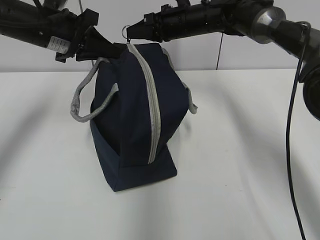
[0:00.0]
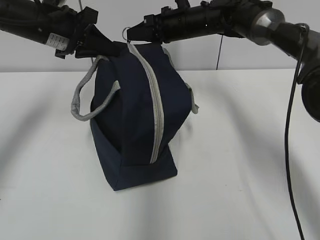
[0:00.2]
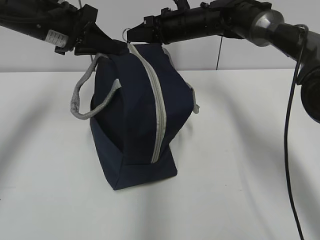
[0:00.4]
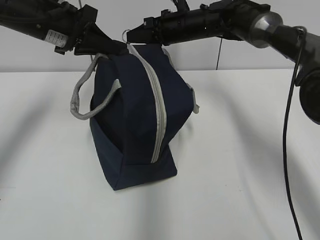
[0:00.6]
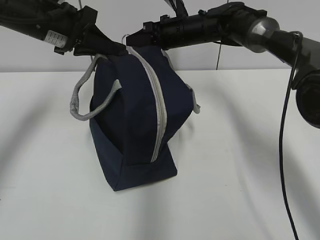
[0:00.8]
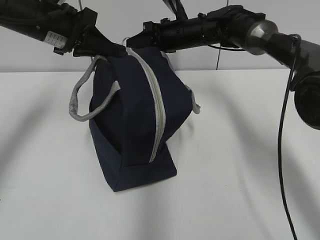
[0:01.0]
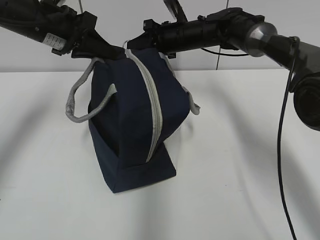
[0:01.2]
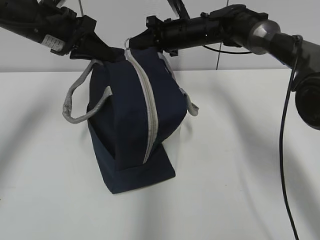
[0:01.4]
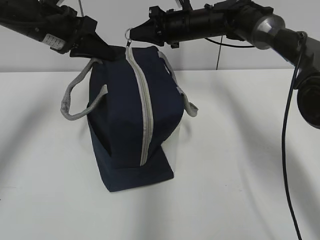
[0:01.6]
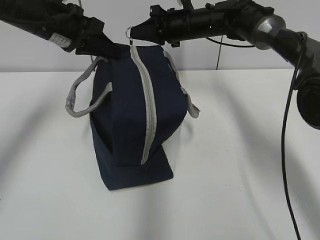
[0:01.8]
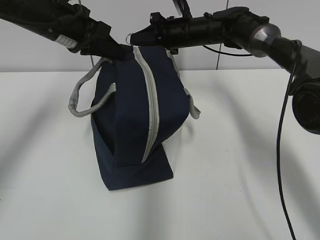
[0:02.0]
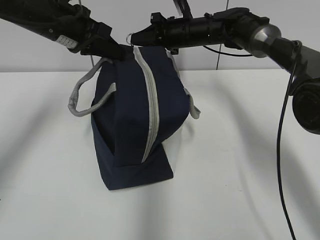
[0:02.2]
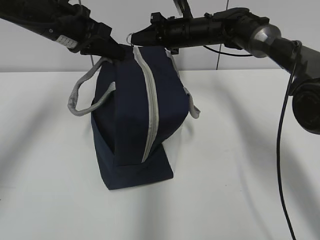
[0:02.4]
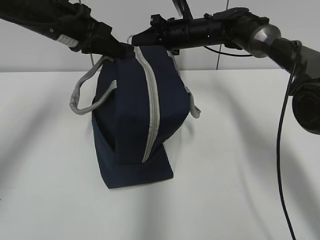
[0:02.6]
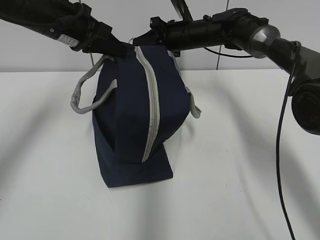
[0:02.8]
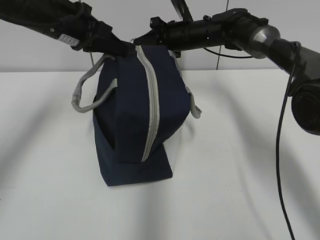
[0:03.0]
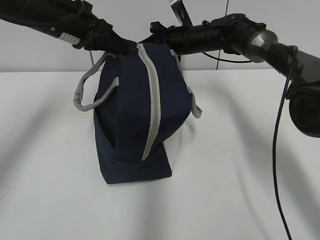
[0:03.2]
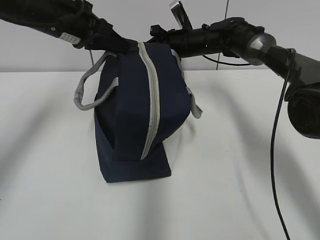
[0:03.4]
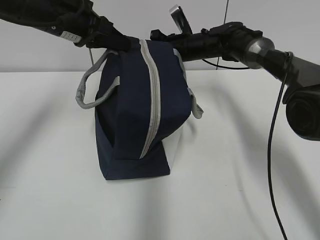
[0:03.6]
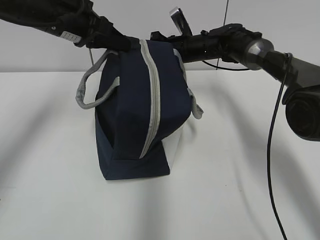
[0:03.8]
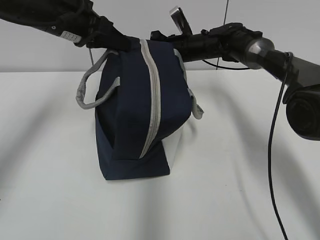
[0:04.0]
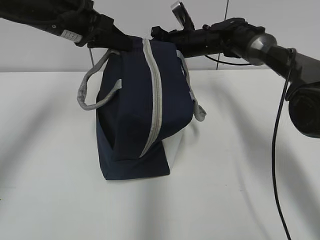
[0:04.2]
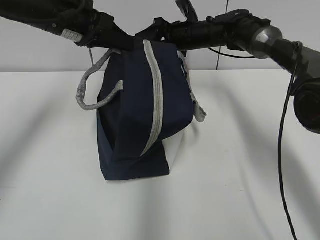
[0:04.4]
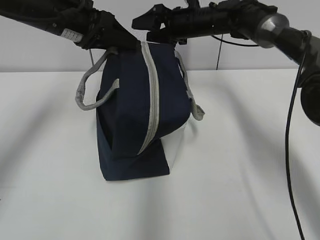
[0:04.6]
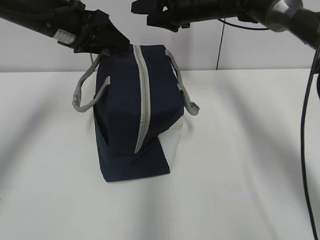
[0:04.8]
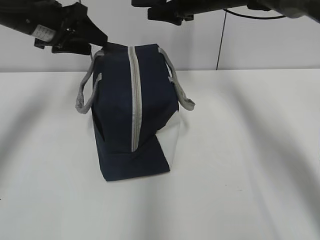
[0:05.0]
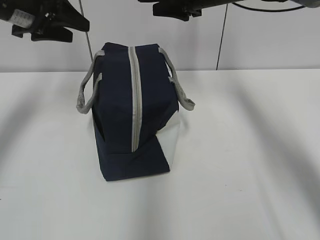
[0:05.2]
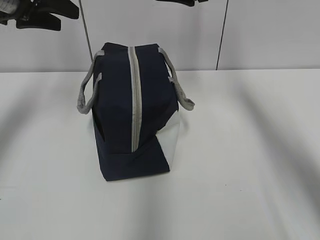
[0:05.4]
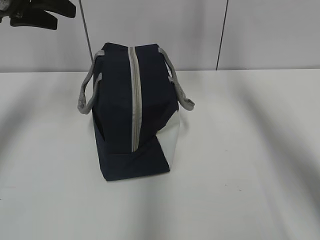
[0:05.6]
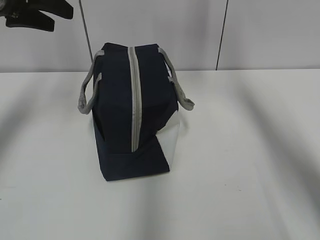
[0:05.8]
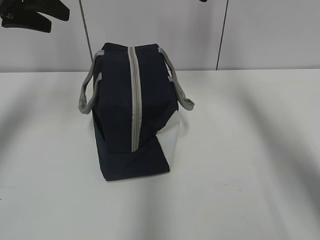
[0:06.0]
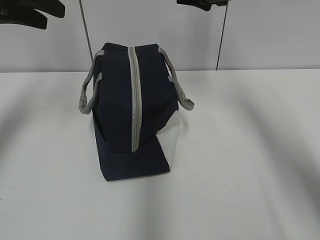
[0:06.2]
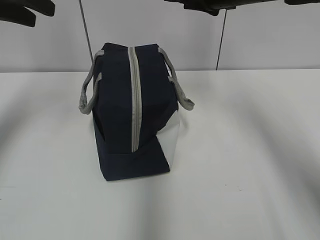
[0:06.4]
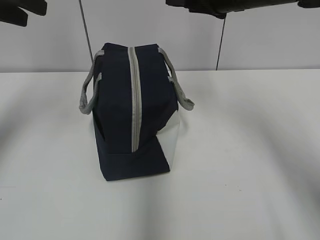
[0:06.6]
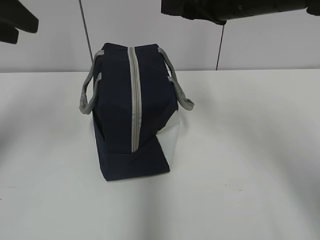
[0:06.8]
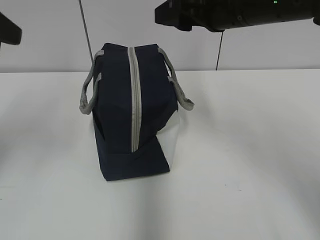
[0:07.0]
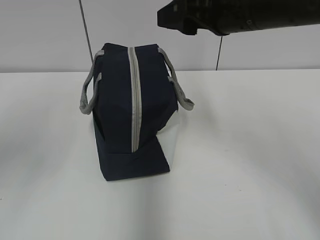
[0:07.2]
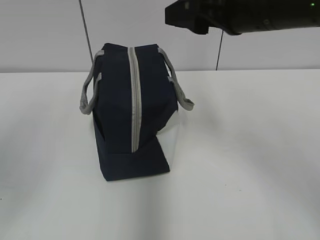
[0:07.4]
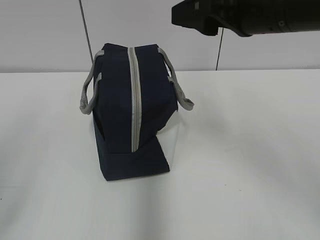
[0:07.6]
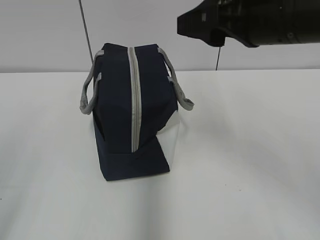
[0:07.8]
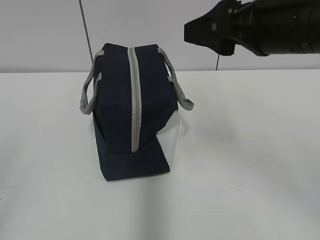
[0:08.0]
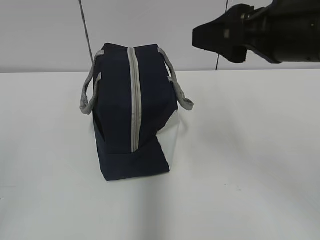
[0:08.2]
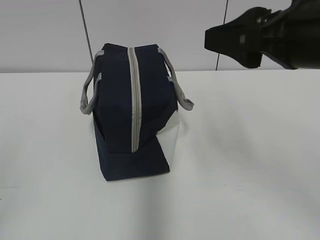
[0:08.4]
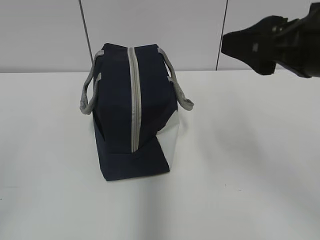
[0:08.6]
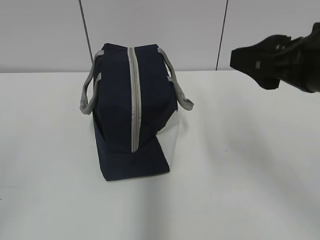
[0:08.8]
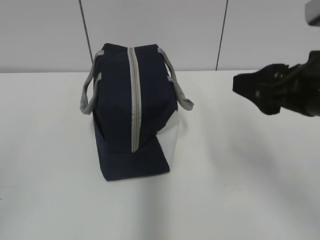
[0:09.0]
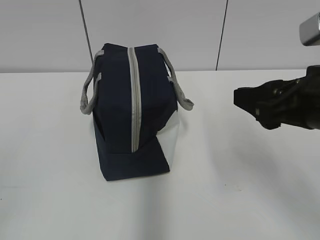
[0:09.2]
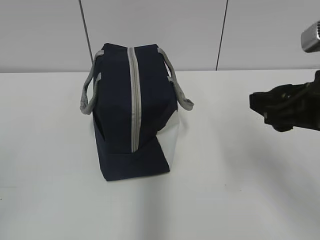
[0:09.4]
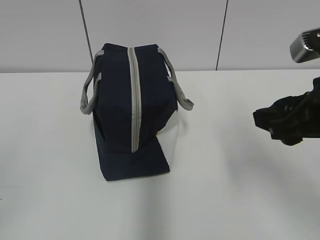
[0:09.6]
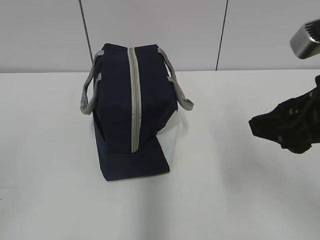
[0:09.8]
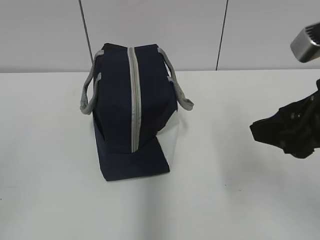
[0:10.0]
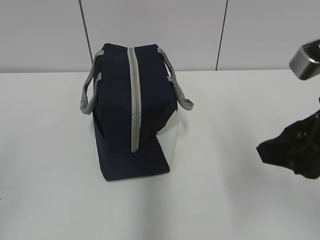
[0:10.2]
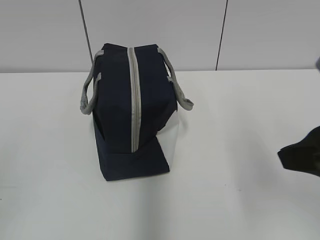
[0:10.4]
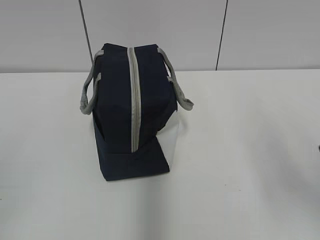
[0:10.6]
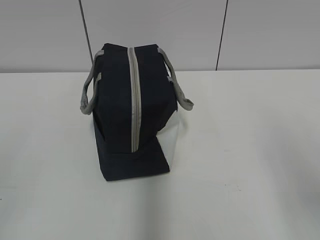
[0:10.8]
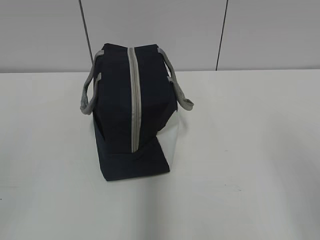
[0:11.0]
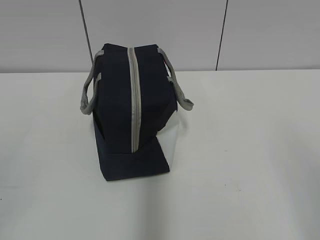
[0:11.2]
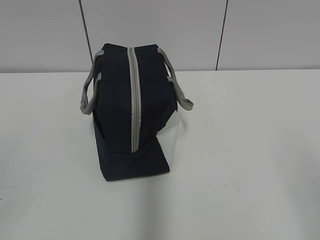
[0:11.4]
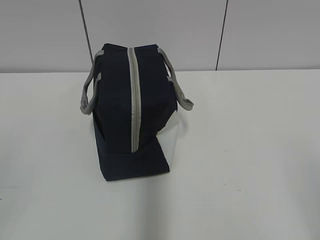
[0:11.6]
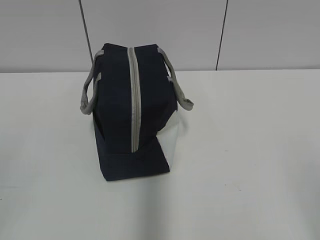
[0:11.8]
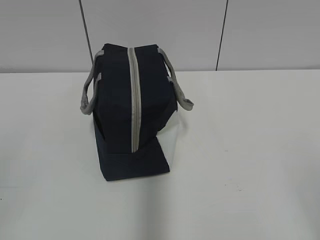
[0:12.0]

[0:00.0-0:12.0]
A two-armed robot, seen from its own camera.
0:00.0 to 0:01.6: There are only small adjustments of the grippers.
0:01.6 to 0:03.0: The grippers make only small movements.
0:03.0 to 0:04.4: The right gripper opens.
0:04.4 to 0:06.0: The right gripper heads upward and backward, covering about 15 cm, while the left gripper goes roughly 10 cm to the left and upward, and opens up.
0:06.0 to 0:07.6: The two grippers go approximately 25 cm backward.
0:07.6 to 0:09.0: The right gripper is displaced backward, downward and to the right by about 10 cm, while the left gripper moves backward and downward, roughly 10 cm.
0:09.0 to 0:10.4: The right gripper heads backward, covering approximately 5 cm.
0:10.4 to 0:12.0: The right gripper goes some 15 cm backward.

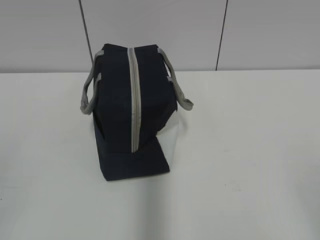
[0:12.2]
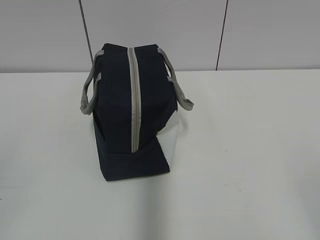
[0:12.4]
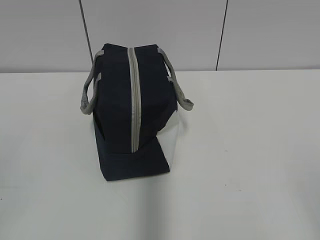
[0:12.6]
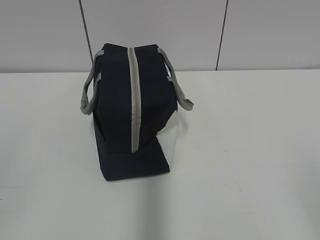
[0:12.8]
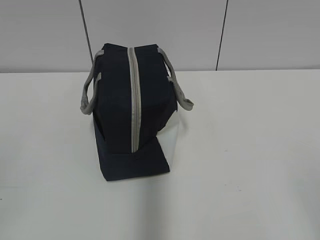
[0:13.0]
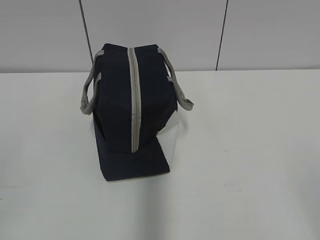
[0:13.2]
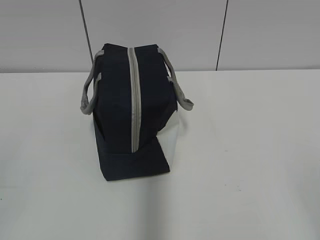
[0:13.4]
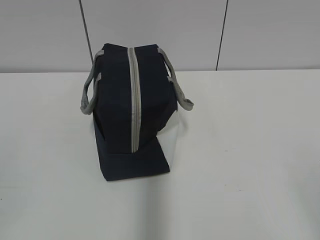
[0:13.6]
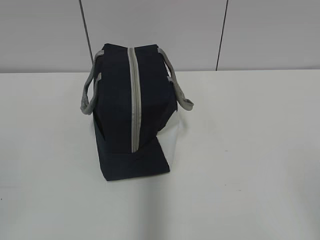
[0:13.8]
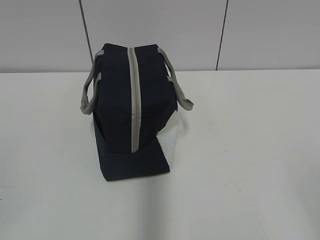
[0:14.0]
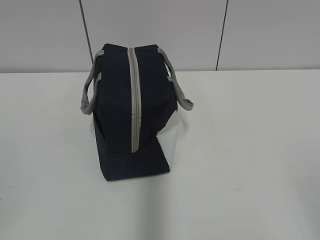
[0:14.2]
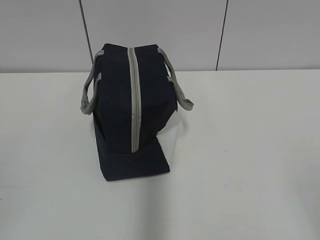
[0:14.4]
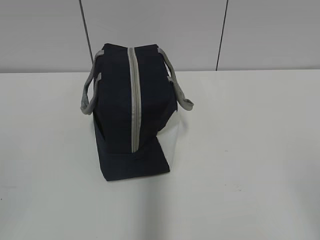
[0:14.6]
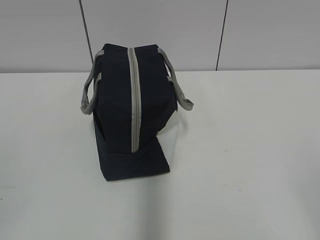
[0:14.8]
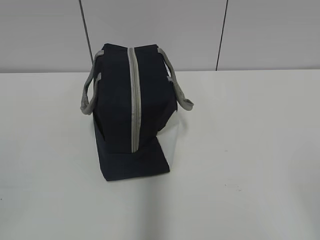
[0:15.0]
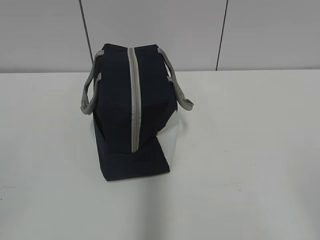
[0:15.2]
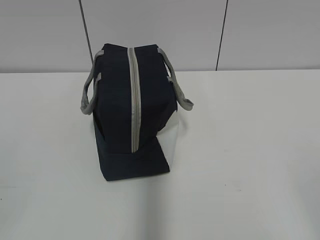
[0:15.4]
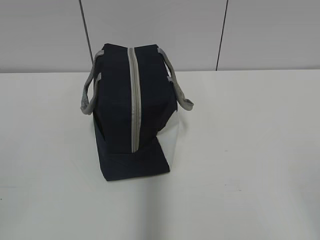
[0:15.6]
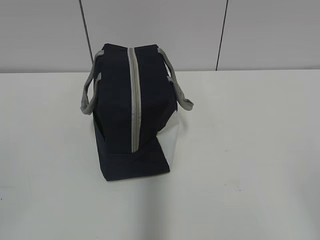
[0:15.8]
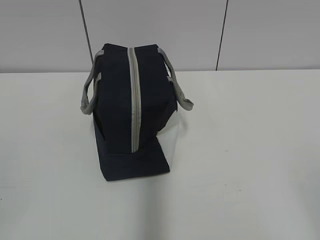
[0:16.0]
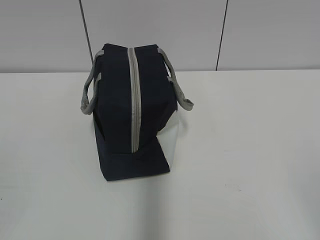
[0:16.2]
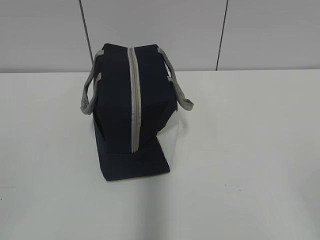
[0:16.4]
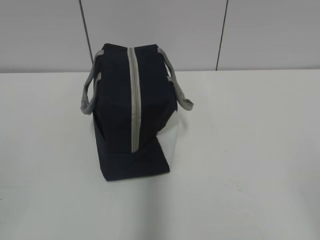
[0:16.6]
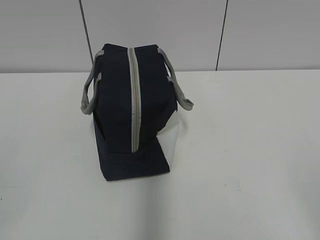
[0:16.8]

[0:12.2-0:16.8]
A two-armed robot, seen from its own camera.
0:13.8 to 0:16.8: Neither gripper changes place.

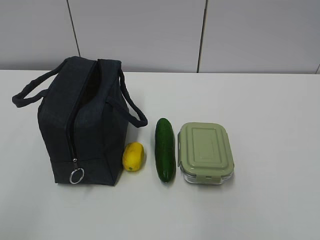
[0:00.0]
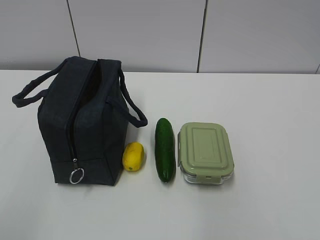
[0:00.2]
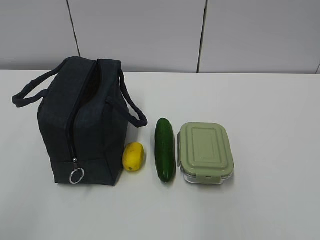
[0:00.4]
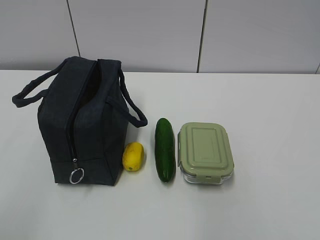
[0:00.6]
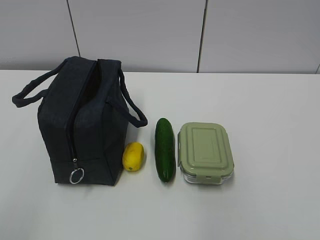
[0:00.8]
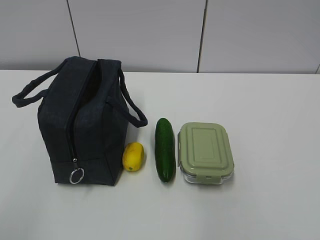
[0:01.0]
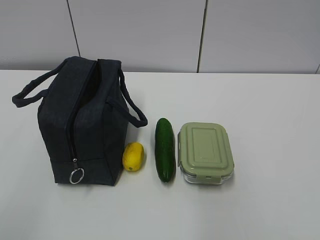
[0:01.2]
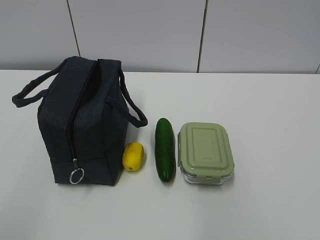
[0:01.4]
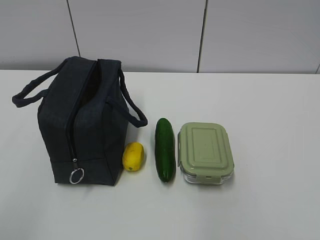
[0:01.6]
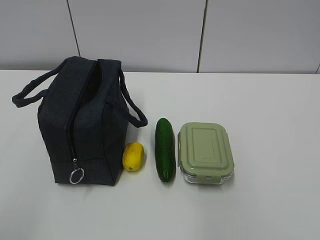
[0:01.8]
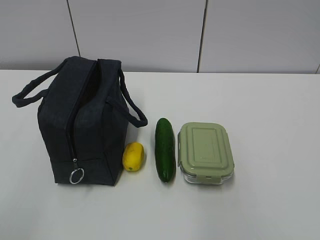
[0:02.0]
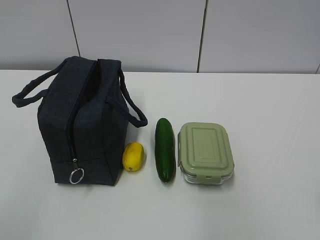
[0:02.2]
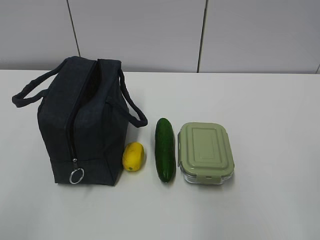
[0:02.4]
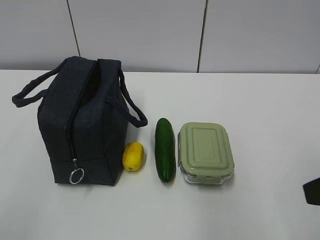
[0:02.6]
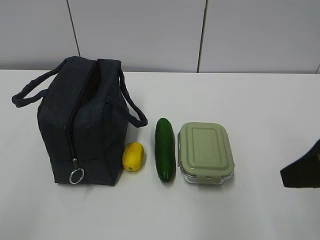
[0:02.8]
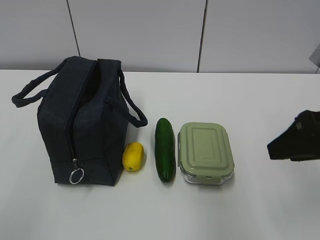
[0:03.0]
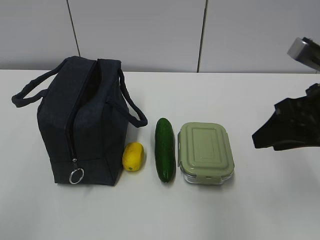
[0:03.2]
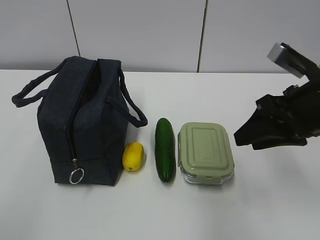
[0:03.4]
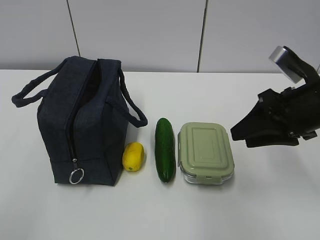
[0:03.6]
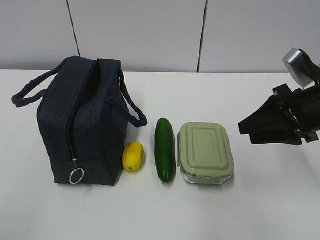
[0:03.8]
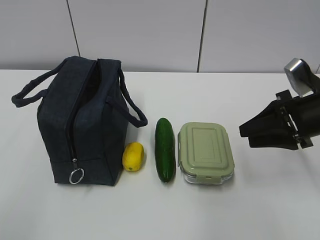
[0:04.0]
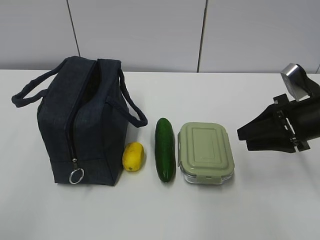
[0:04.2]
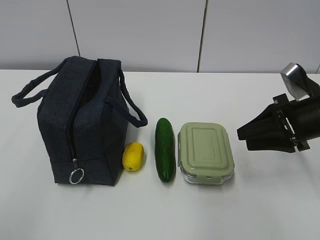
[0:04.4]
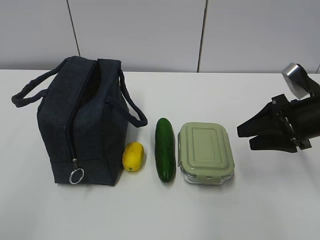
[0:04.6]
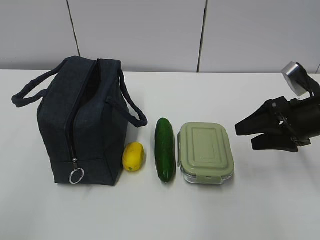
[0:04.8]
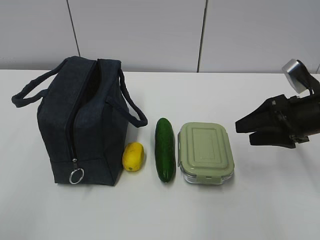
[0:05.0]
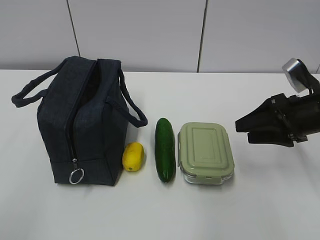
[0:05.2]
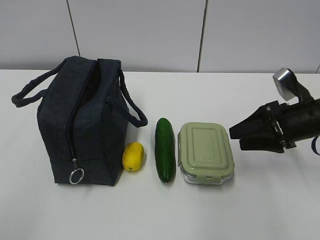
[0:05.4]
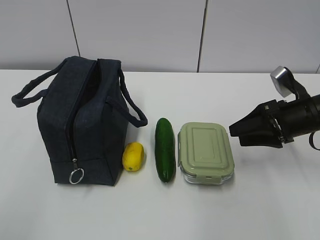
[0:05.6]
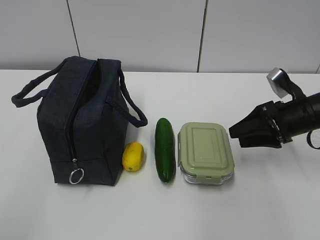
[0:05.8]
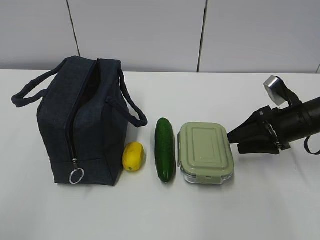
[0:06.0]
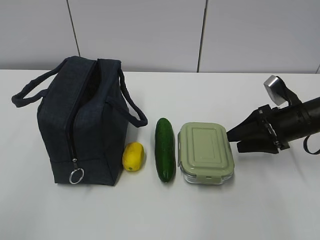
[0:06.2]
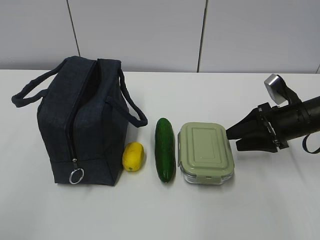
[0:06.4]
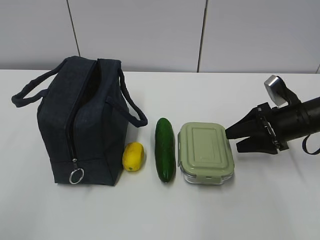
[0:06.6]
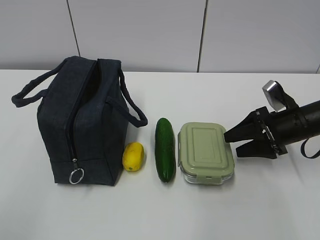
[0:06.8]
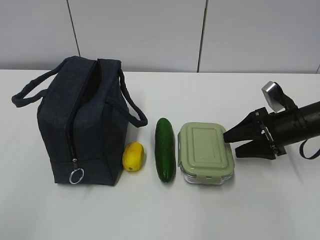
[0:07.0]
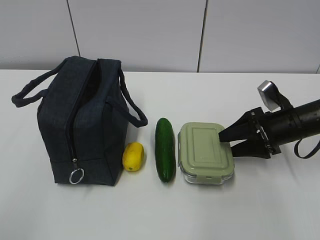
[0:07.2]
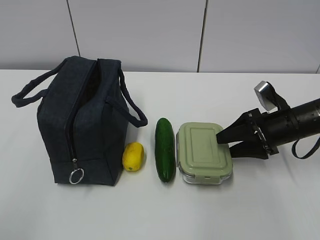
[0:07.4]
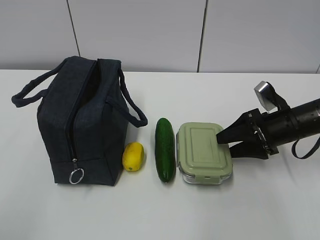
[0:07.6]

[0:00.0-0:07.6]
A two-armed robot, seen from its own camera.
0:01.6 to 0:03.0: The right gripper shifts about 20 cm forward.
0:03.0 to 0:04.6: The right gripper heads forward and downward, covering some 15 cm.
0:04.6 to 0:06.0: The right gripper ends up approximately 5 cm from where it was.
0:06.0 to 0:07.6: The grippers make only small movements.
